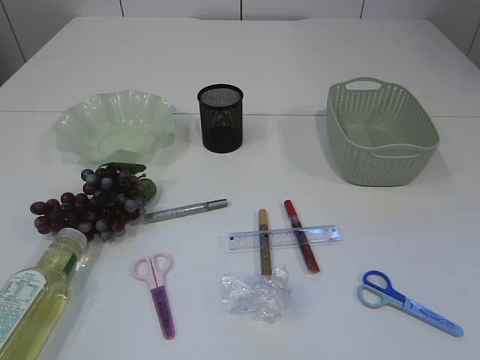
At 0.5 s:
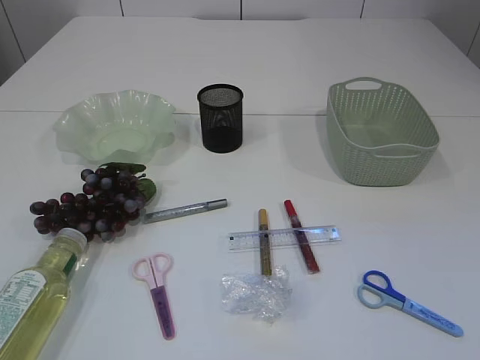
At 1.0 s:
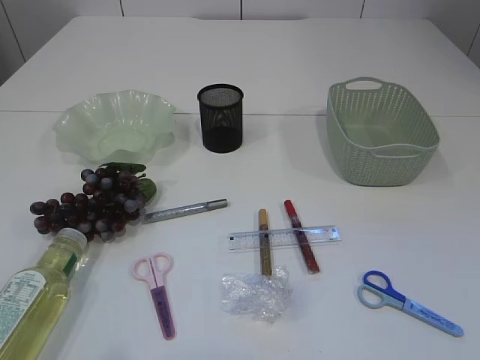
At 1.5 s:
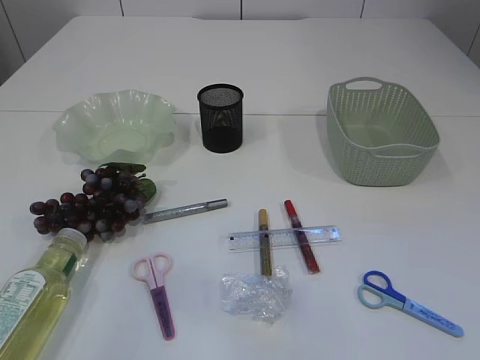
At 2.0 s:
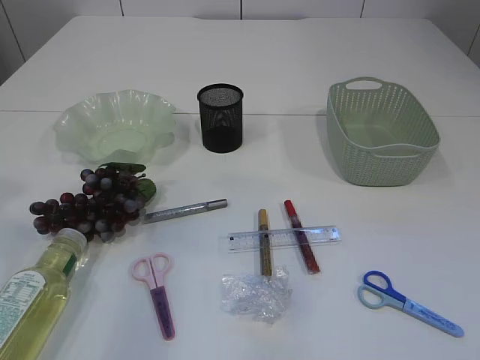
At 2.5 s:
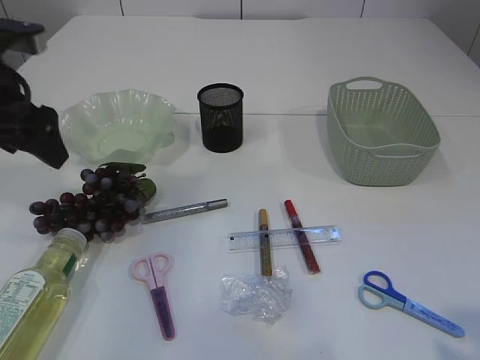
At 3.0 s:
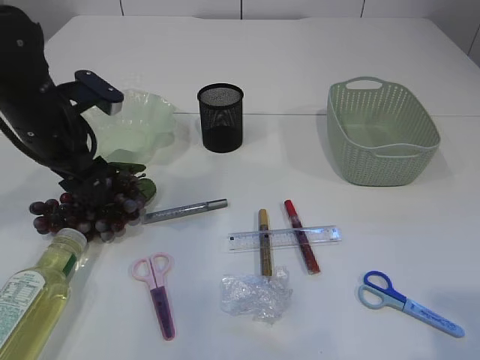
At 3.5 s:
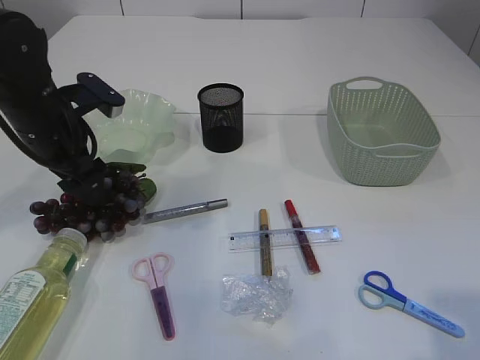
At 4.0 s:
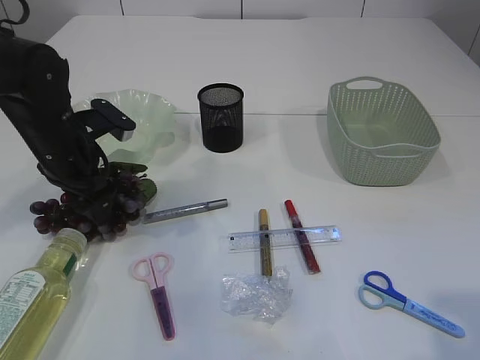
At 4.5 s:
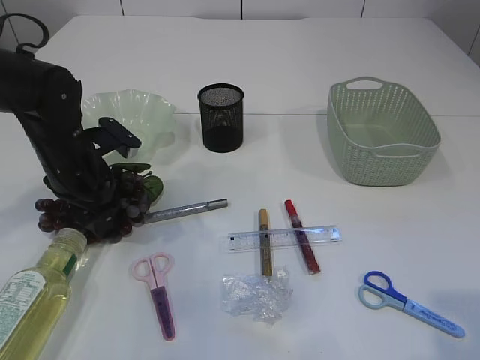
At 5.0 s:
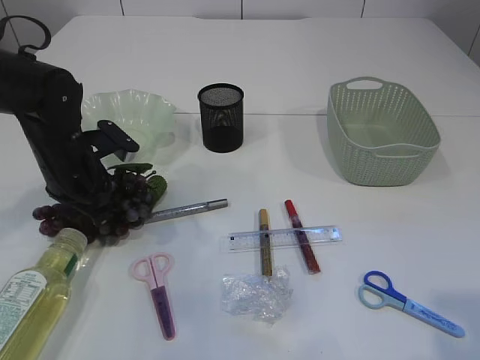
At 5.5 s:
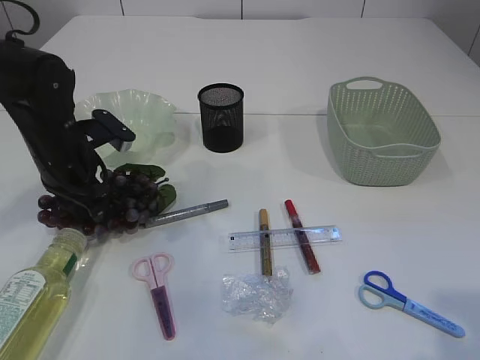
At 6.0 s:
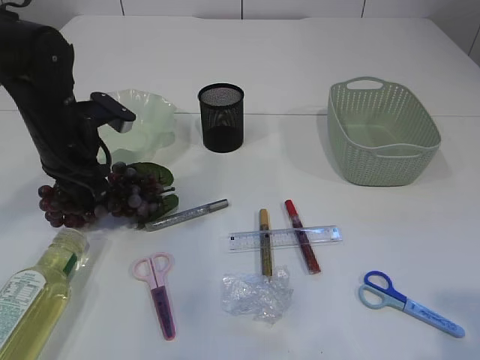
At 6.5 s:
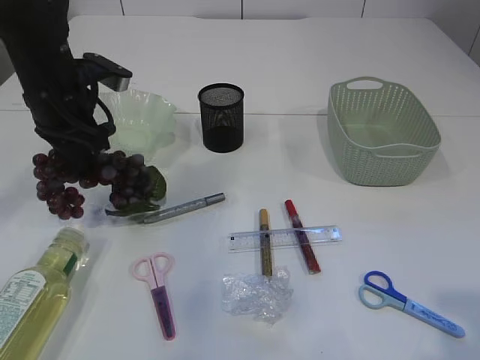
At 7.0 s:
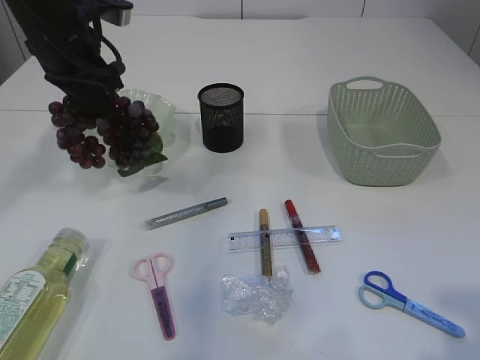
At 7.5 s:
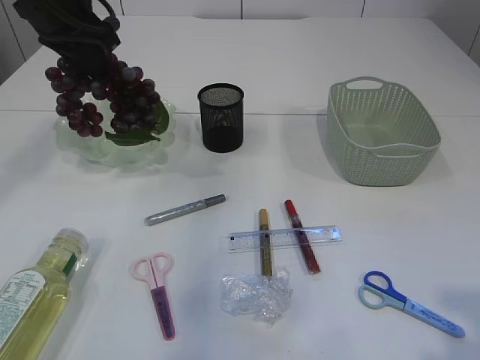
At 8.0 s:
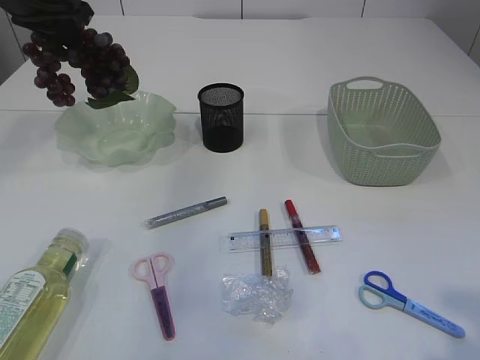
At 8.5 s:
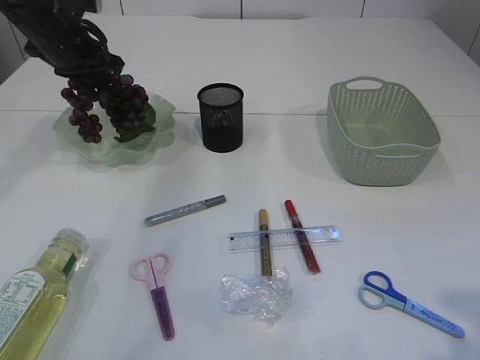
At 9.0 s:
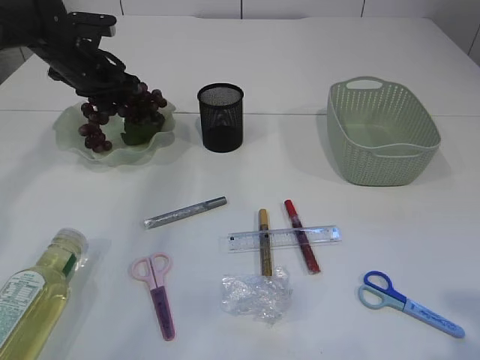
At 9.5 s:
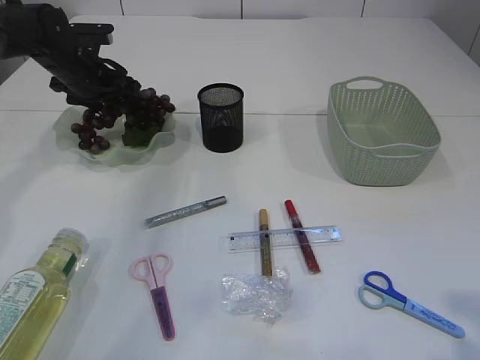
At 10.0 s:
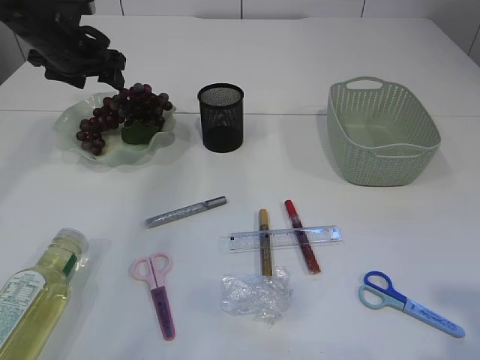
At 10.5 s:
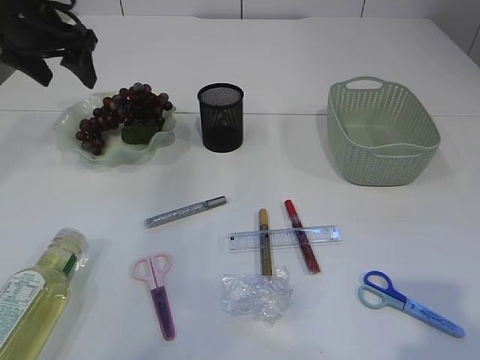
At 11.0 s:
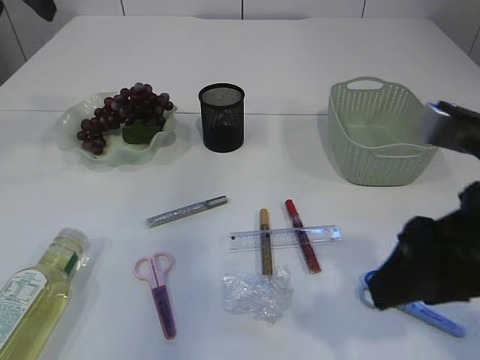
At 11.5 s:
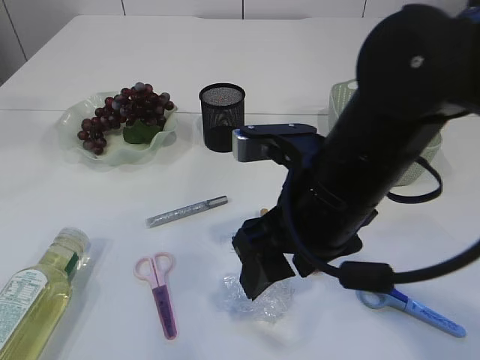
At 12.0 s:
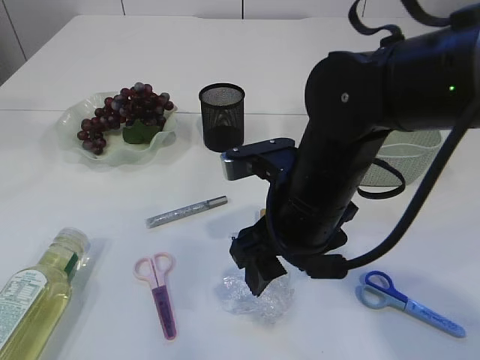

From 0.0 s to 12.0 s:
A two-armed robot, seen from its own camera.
Step, from 0.0 s to 7.0 s: Pick up the grapes.
Step, from 7.5 s to 10.0 s: Place the grapes in the plate.
From 2.0 s to 4.0 s: The left gripper shifts some 25 cm downward and forward.
From 4.0 s to 6.0 s: The left gripper closes.
From 6.0 s to 8.0 s: The left gripper travels upward and forward by about 15 cm.
From 8.0 s to 10.0 s: The left gripper goes roughly 10 cm downward and forward, and opens its fingers.
From 10.0 s to 12.0 s: The left gripper shifts about 30 cm upward and backward. Meanwhile the right gripper shifts roughly 30 cm to the left, forward and downward.

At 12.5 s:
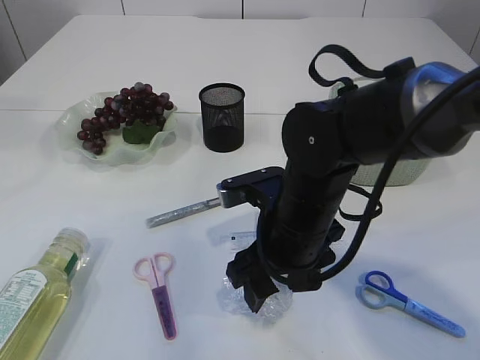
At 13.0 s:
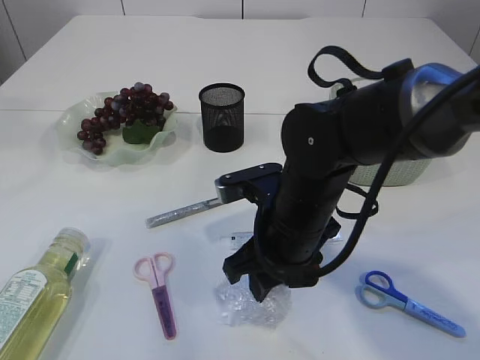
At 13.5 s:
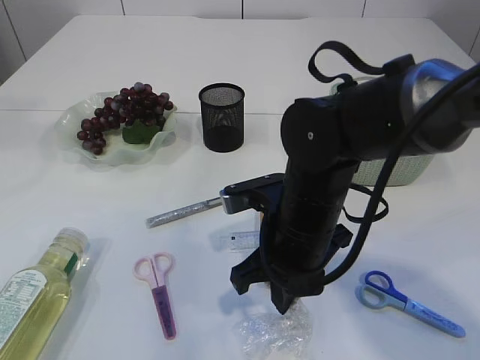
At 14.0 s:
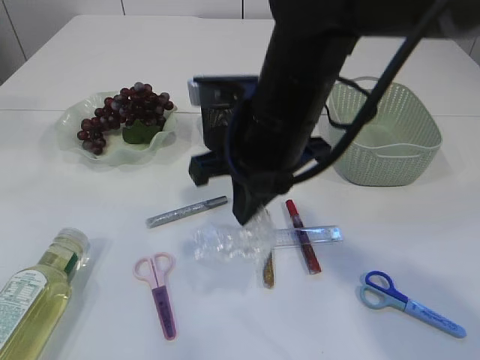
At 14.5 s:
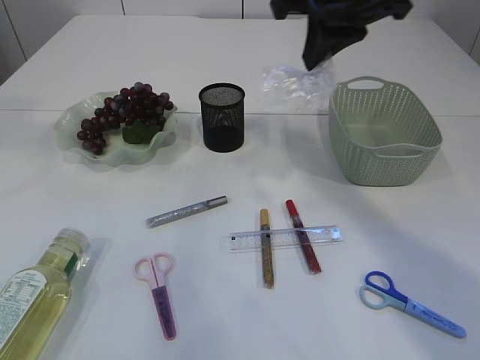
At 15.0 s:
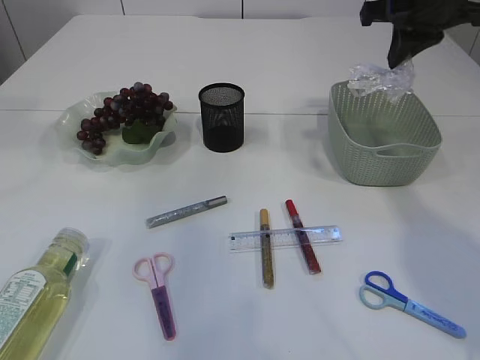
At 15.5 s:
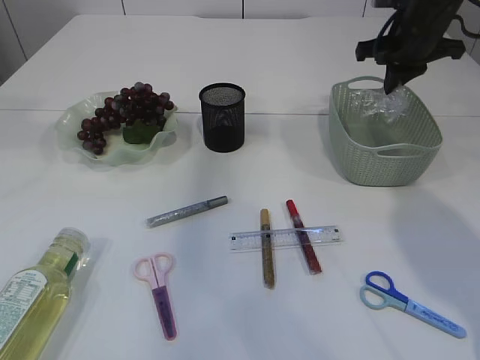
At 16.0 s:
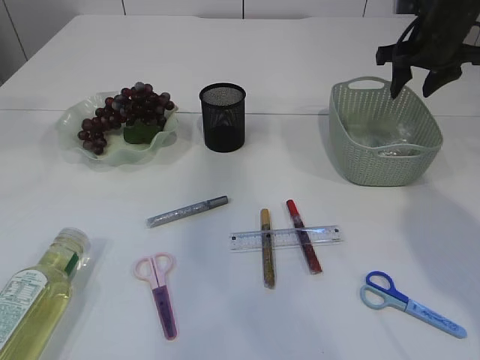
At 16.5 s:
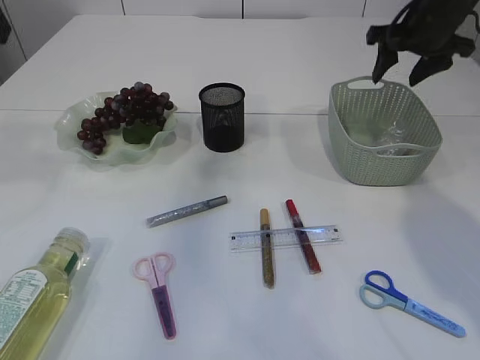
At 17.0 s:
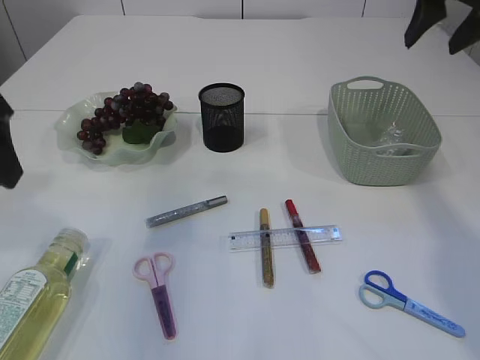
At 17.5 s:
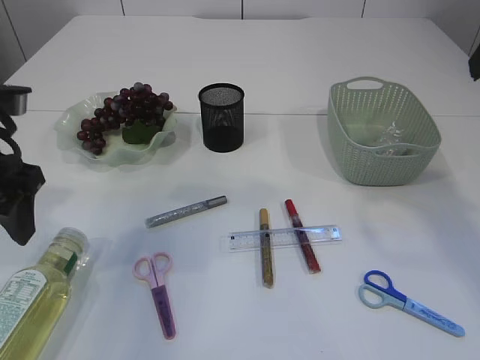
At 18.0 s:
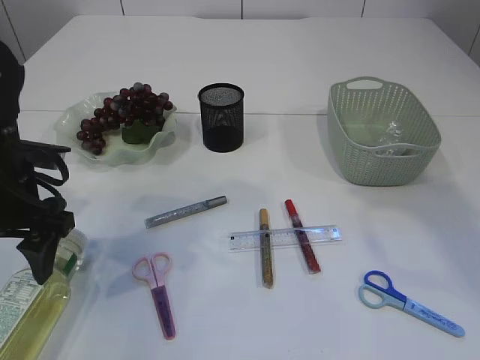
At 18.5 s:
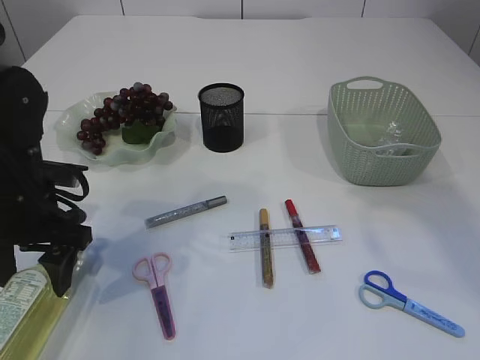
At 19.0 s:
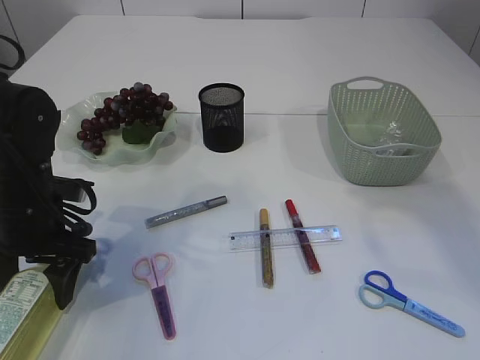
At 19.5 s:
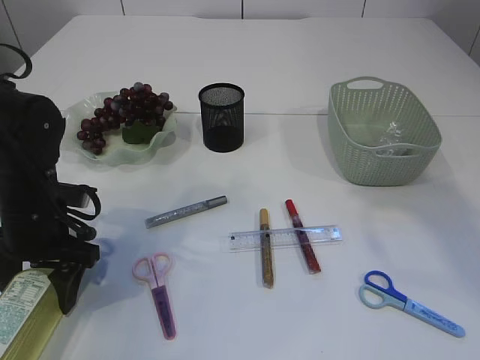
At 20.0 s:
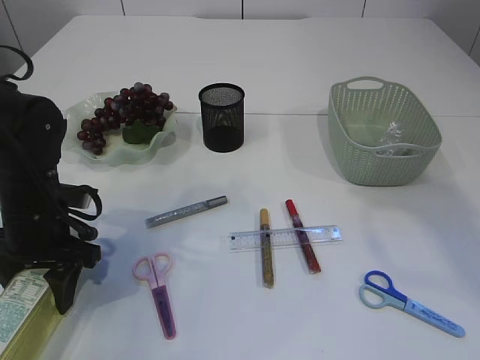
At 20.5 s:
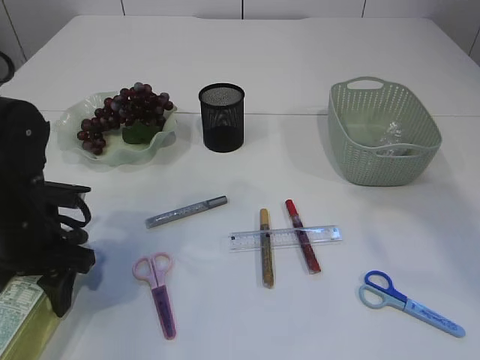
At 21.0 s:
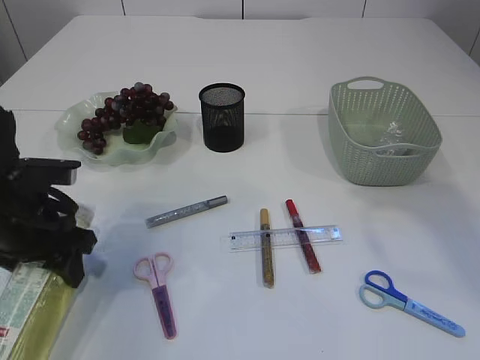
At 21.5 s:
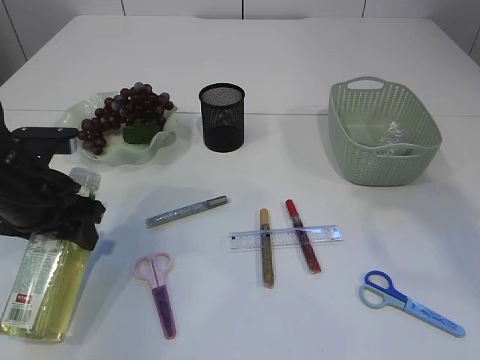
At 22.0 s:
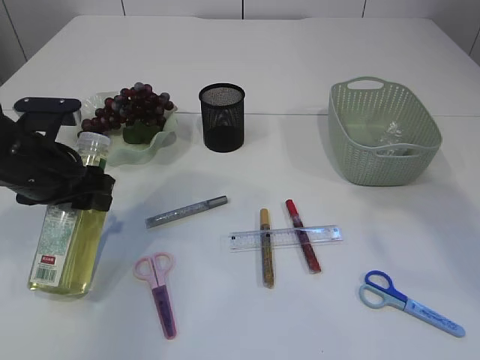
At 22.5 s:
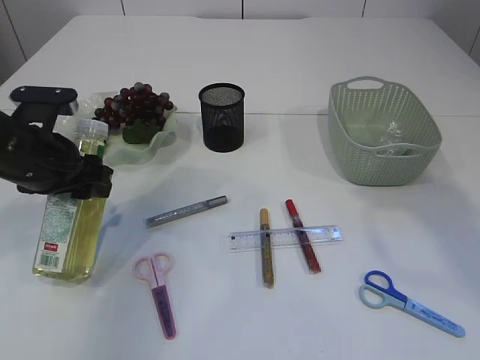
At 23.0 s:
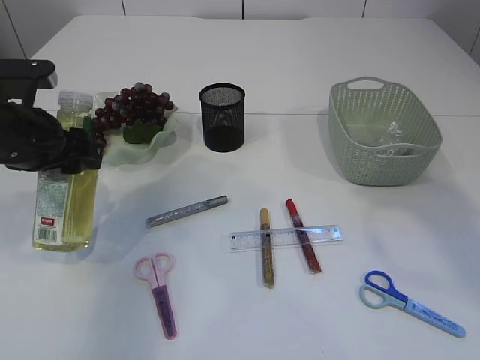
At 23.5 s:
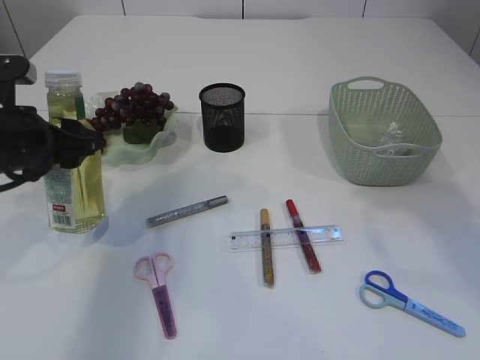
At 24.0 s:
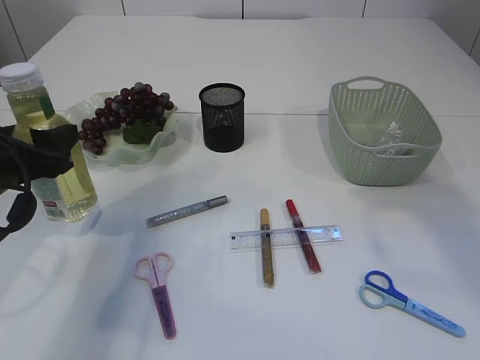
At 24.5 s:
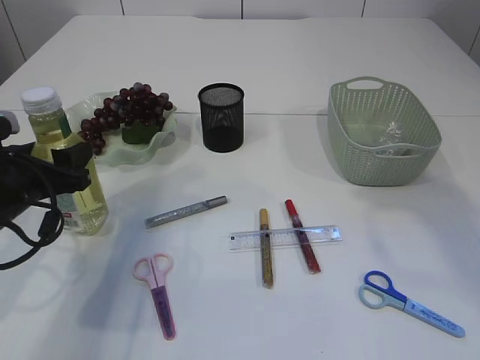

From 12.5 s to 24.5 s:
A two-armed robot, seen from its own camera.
Step, from 14.5 s to 16.5 s: Place the plastic in the basket.
Step, from 17.0 s to 22.5 s: Pick up the bottle with the left arm.
From 12.5 s to 14.5 s: The right gripper heads upward and forward, covering approximately 25 cm, and closes.
From 14.5 s to 16.5 s: The right gripper shifts some 20 cm to the right, forward and downward, and opens up, while the left gripper travels downward by approximately 5 cm.
From 16.5 s to 18.5 s: The right gripper travels backward and upward by some 30 cm; the left gripper is displaced downward by about 25 cm.
From 18.5 s to 20.5 s: There are only small adjustments of the grippers.
From 20.5 s to 22.5 s: The left gripper heads upward, covering roughly 5 cm.
From 22.5 s to 24.5 s: The left gripper shifts by some 5 cm.

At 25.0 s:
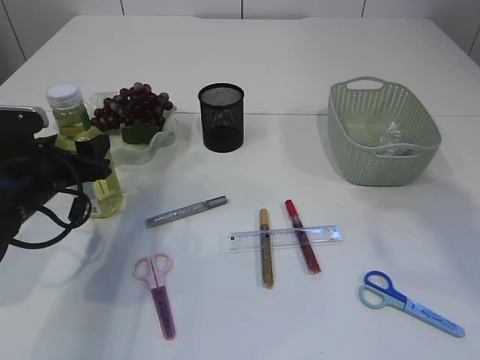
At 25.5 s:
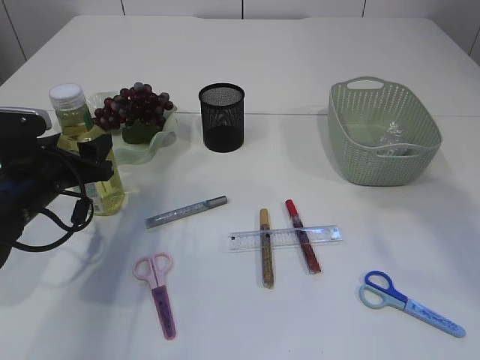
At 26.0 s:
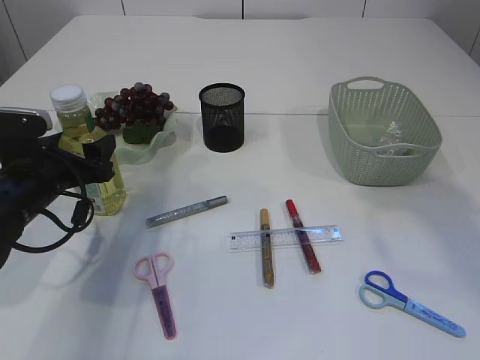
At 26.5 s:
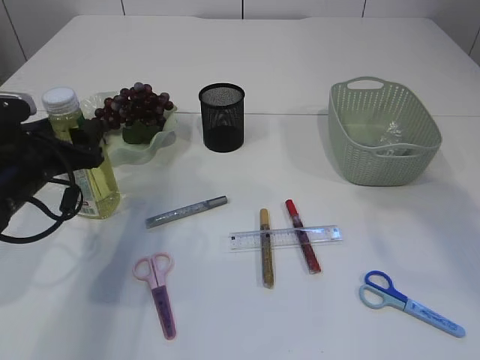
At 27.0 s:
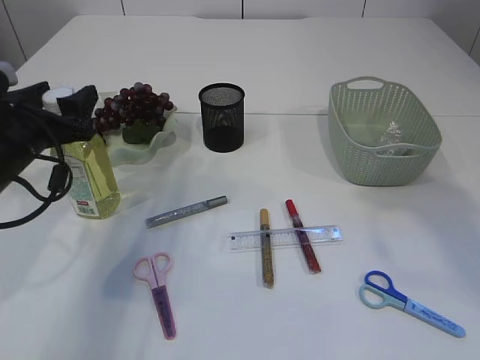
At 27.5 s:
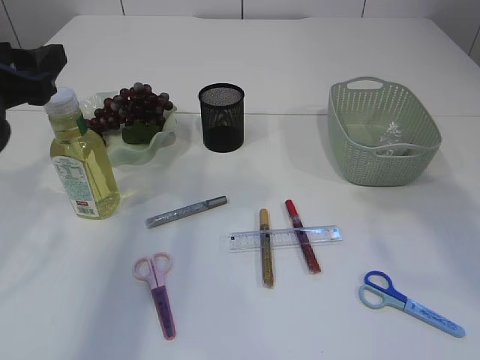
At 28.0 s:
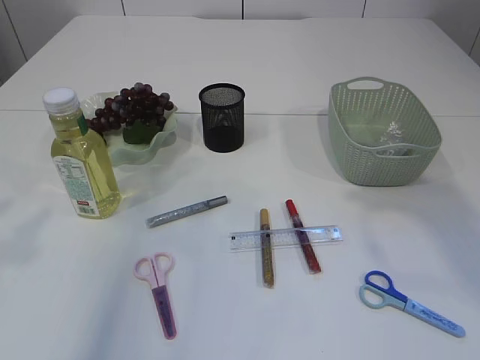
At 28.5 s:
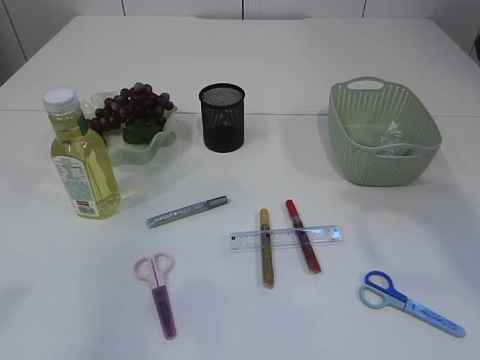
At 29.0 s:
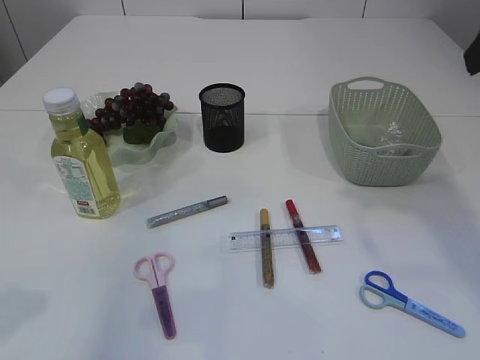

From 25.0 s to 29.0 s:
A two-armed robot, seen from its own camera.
Step, from 25.0 s to 27.5 s: Place the bottle.
From 25.0 s to 27.0 s: The left gripper shifts roughly 5 cm upward.
From 27.0 s to 29.0 s: The left gripper is displaced backward and upward by roughly 25 cm.
